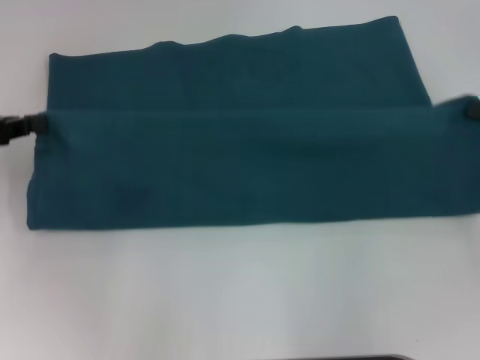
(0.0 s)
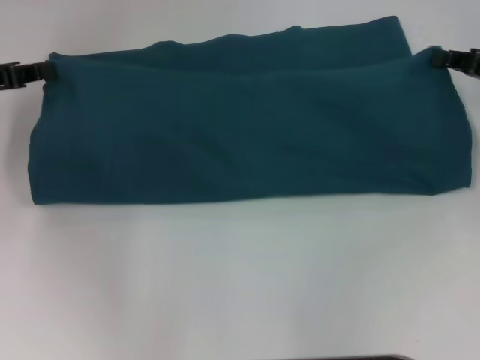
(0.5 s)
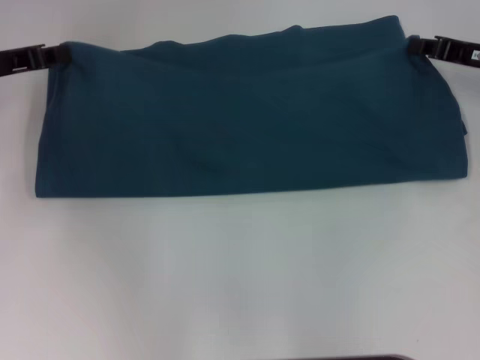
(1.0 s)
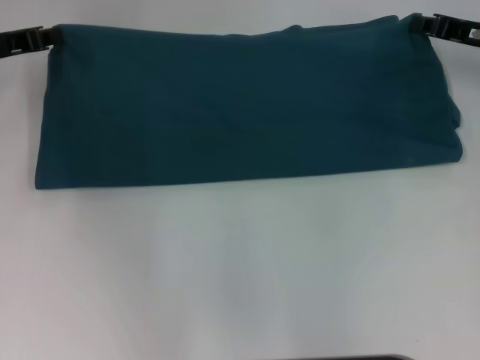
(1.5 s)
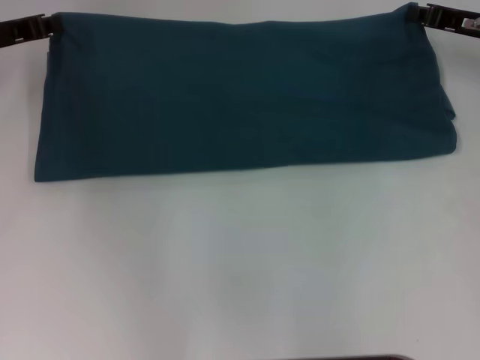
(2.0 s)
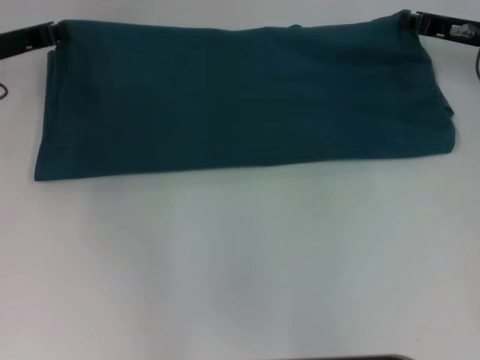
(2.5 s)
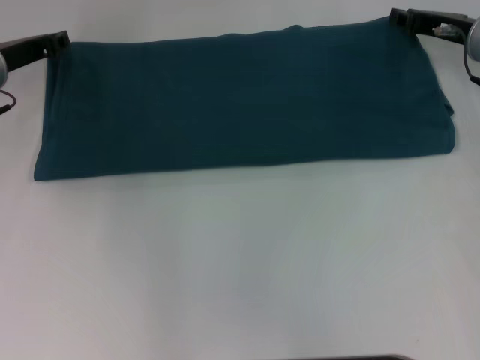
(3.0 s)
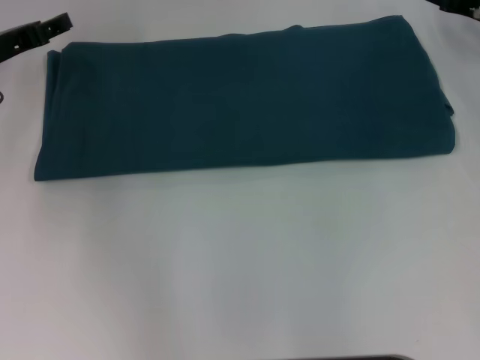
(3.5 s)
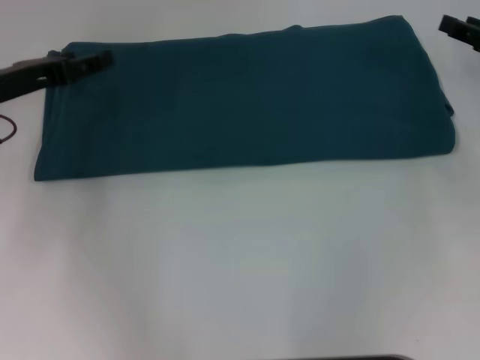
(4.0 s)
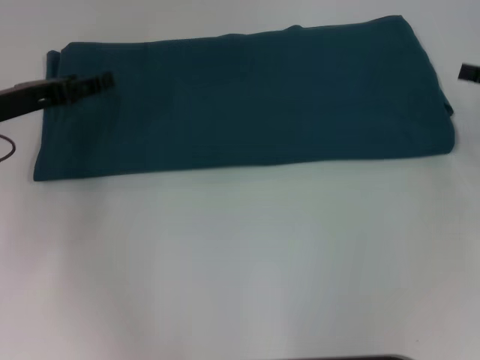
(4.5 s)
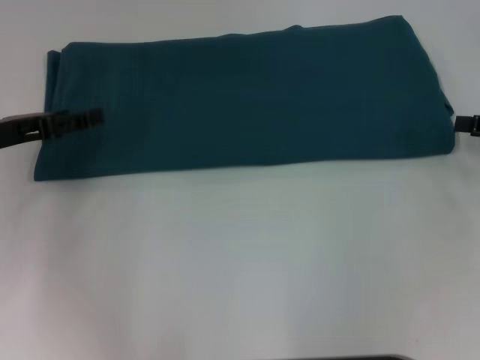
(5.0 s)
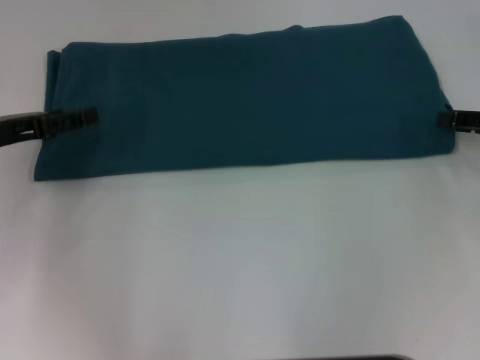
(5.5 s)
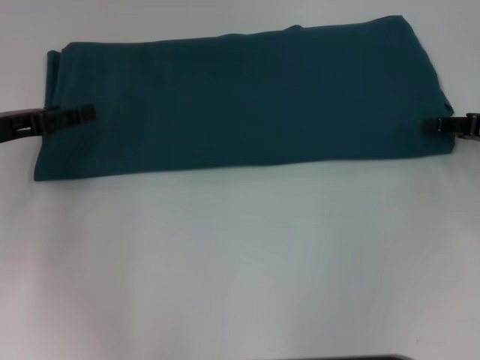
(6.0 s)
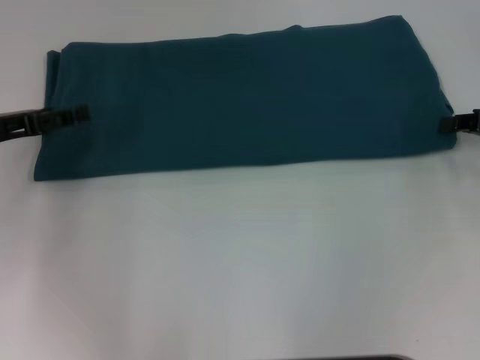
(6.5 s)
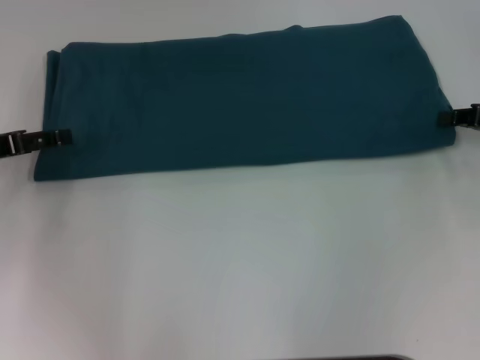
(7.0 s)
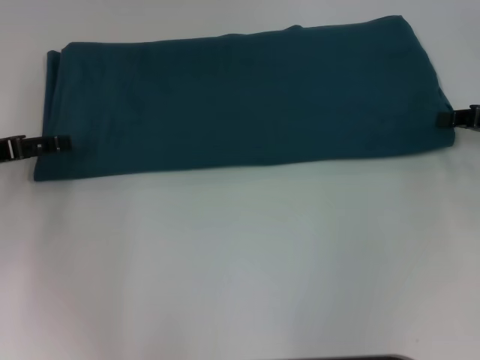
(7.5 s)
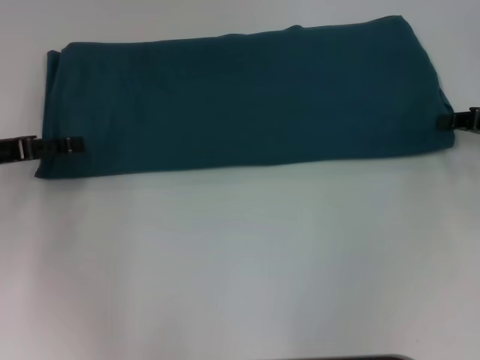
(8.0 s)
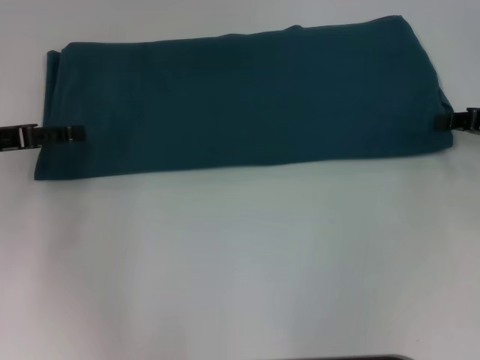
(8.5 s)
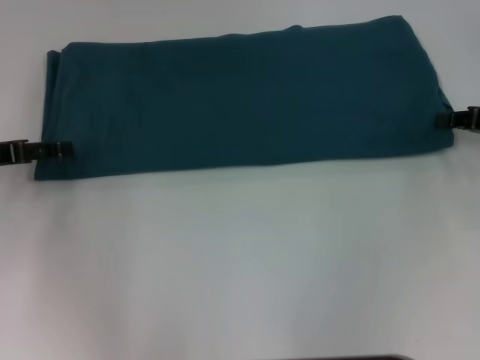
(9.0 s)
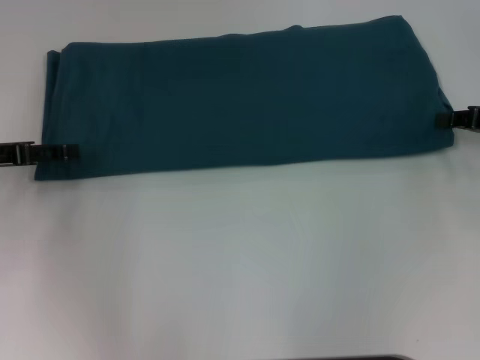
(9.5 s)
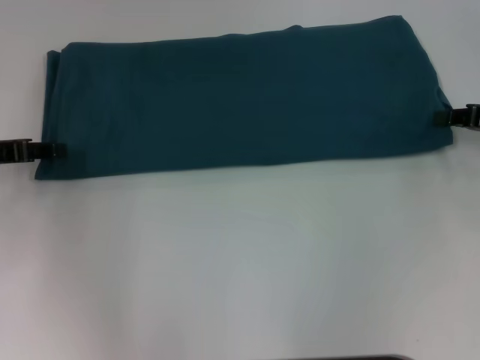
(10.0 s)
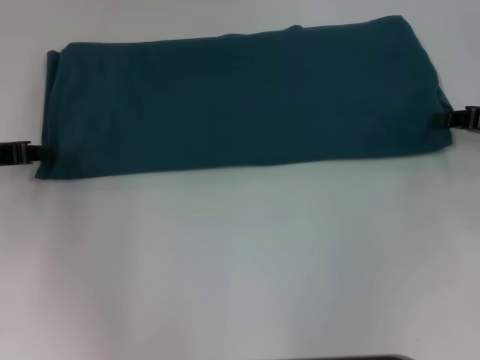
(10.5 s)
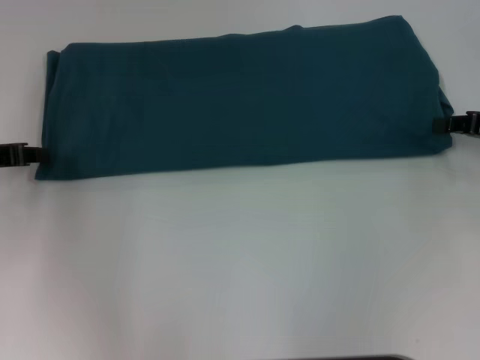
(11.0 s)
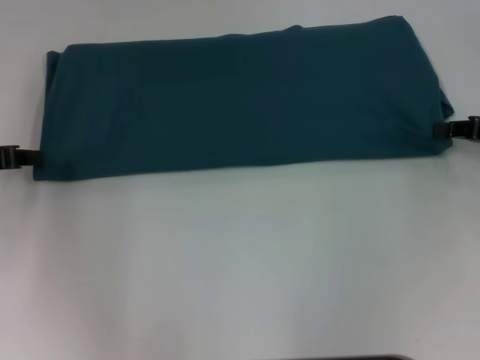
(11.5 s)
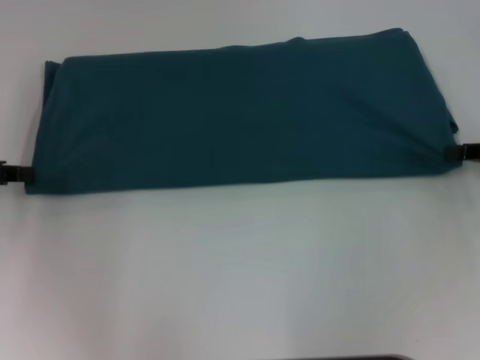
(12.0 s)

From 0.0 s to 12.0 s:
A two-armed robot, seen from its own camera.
Step, from 0.0 s to 3.0 s: Fold the clothes to the left.
Step, from 0.0 s to 3.0 s: Fold the clothes to the right.
From 0.0 s to 2.0 s: The right gripper travels forward and to the left by roughly 15 cm, while the left gripper heads forward and to the right, covering about 10 cm.
From 2.0 s to 4.0 s: The two grippers go approximately 5 cm backward. The right gripper opens up, while the left gripper opens its fingers.
From 10.0 s to 12.0 s: The left gripper closes.

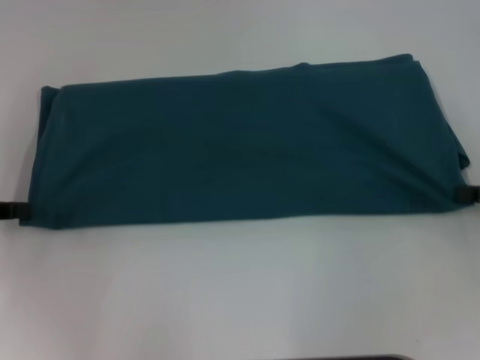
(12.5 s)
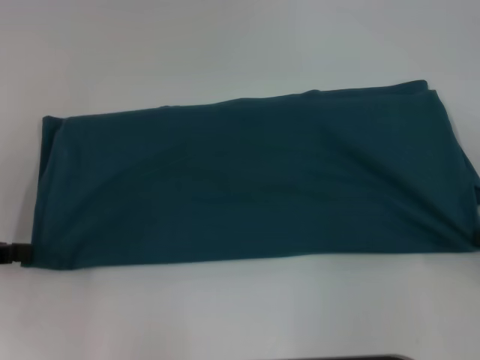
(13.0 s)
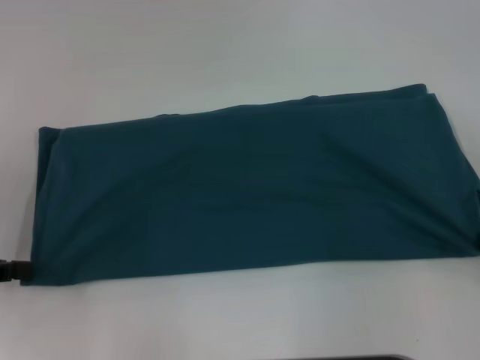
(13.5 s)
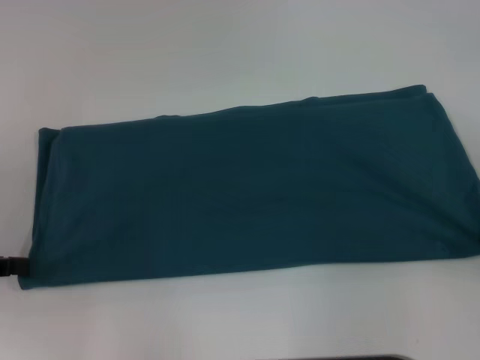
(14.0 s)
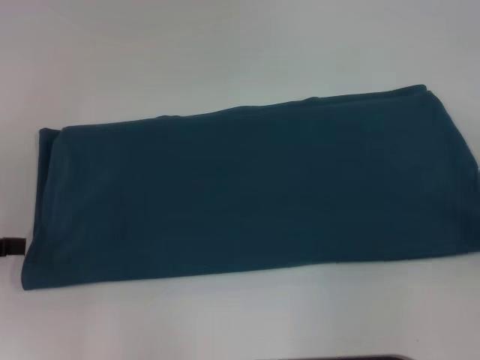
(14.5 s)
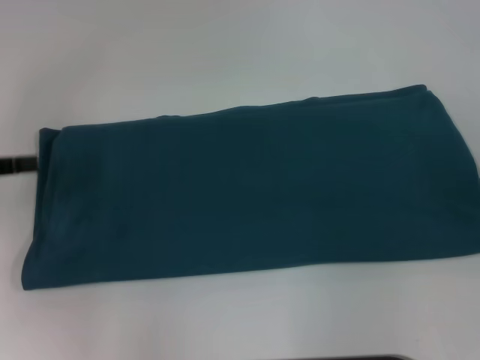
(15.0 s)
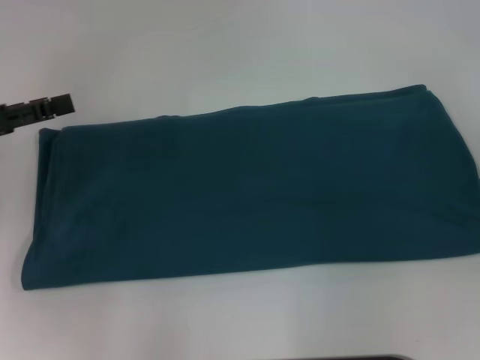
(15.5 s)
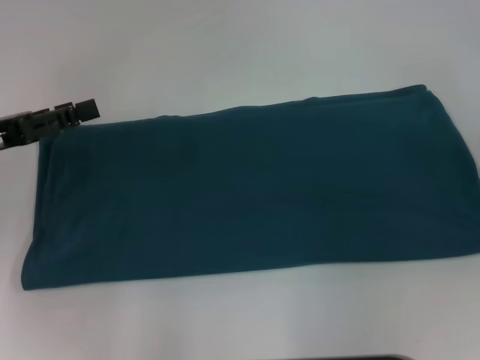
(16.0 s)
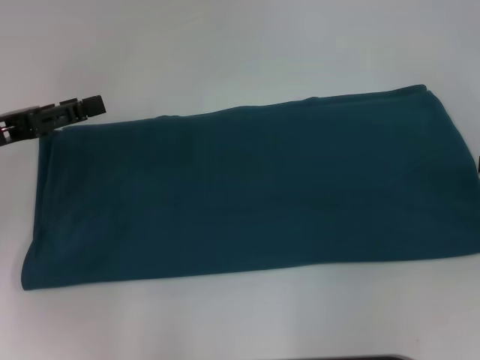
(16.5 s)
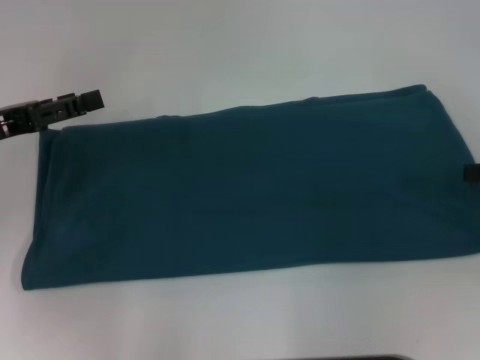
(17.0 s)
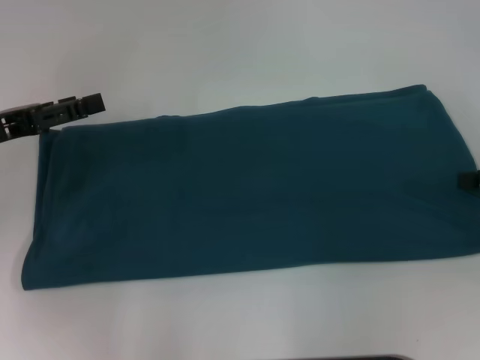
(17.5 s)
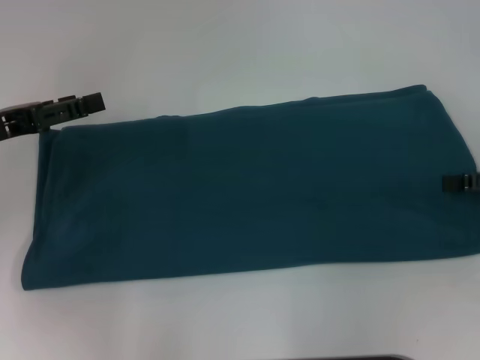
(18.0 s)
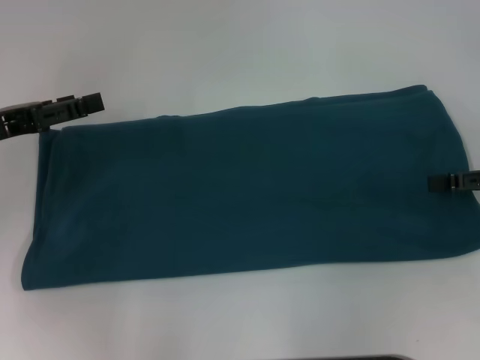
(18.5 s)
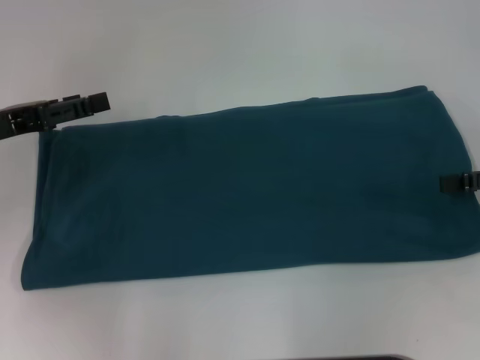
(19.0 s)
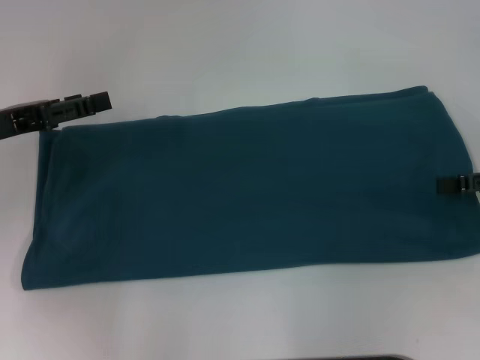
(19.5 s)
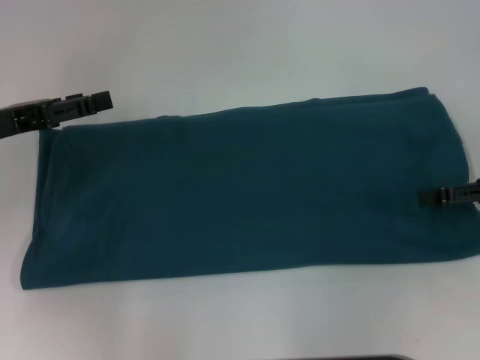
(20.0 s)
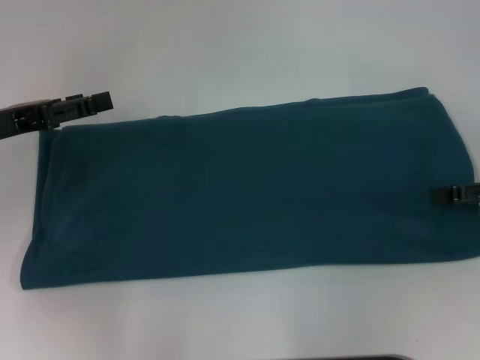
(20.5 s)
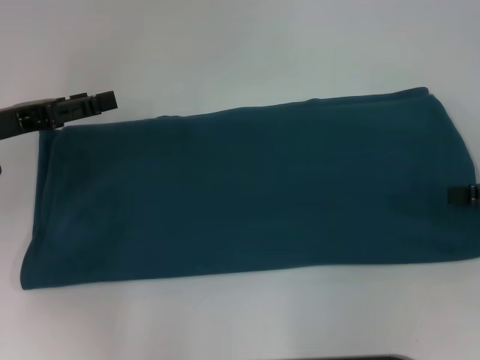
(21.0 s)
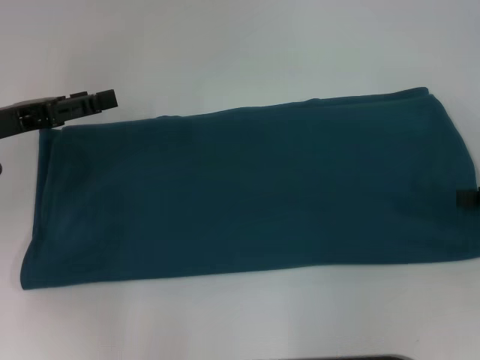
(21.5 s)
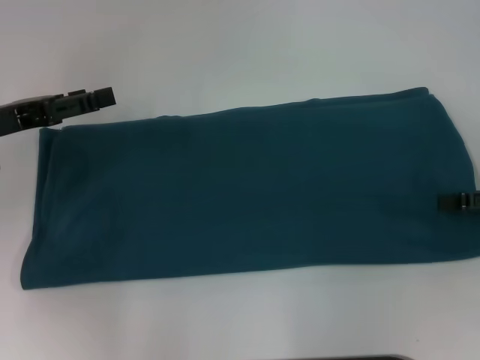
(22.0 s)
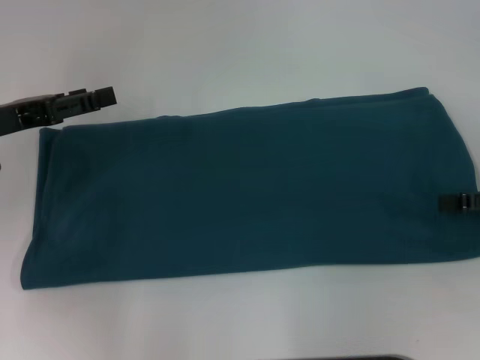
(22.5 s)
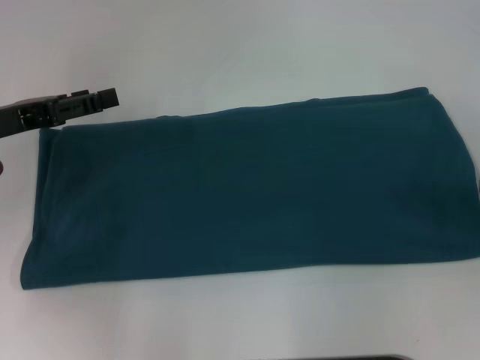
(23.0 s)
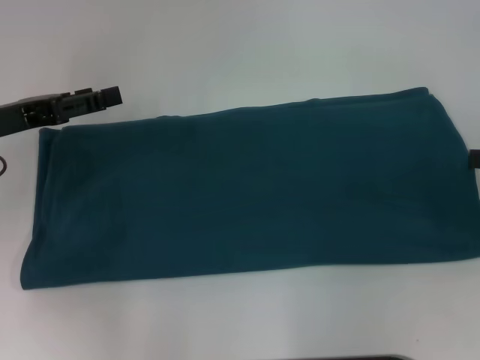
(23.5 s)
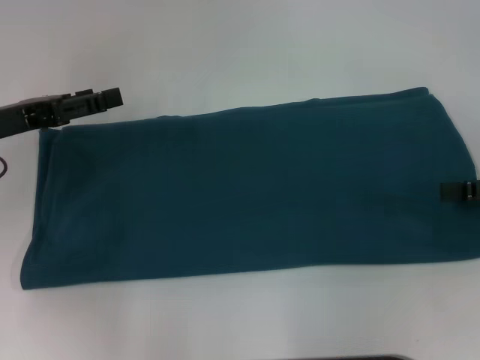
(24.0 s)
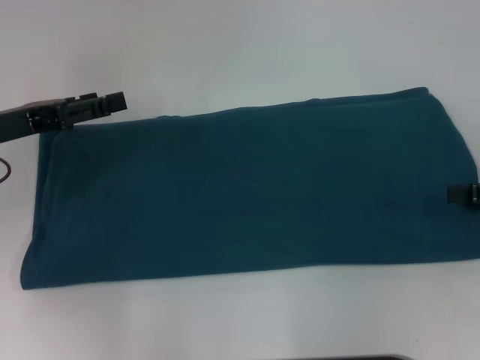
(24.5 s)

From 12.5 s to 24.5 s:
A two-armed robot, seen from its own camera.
Step, from 12.5 s to 14.5 s: Pull the clothes with your left hand.
Step, from 12.5 s to 14.5 s: Pull the clothes with your right hand.
From 14.5 s to 16.5 s: The left gripper shifts some 10 cm to the right and forward, and opens.
From 16.5 s to 24.5 s: There are only small adjustments of the grippers.

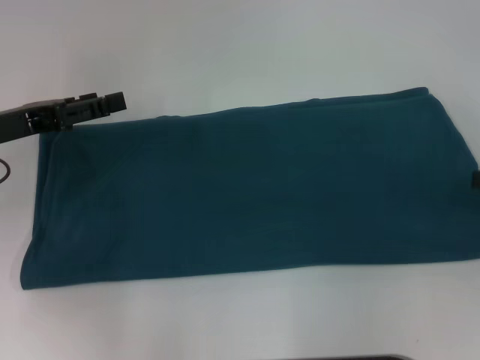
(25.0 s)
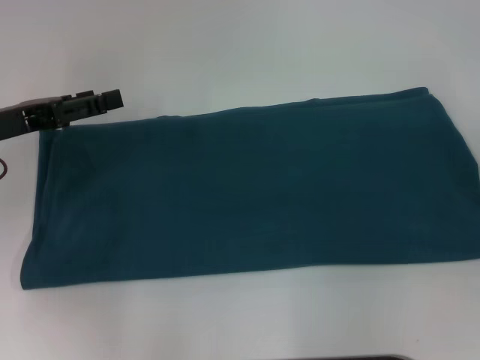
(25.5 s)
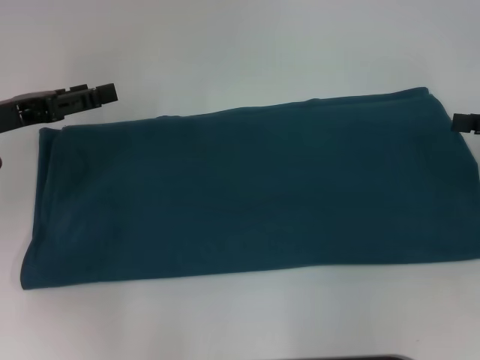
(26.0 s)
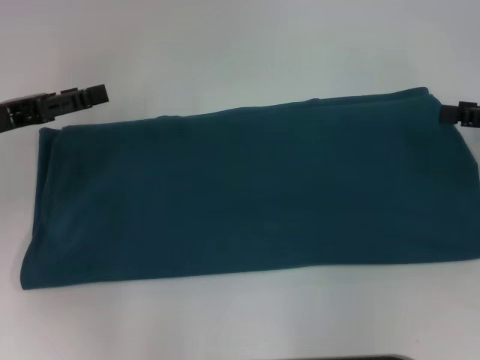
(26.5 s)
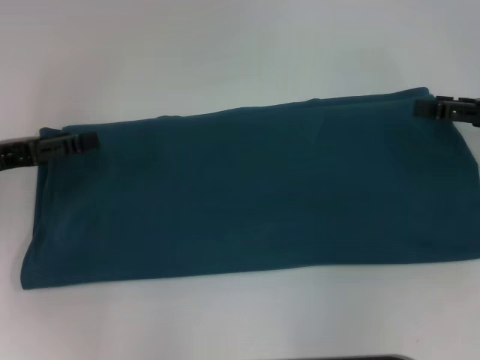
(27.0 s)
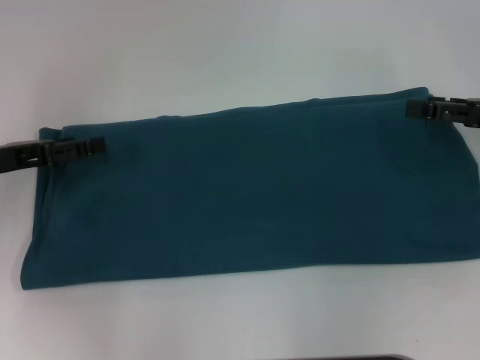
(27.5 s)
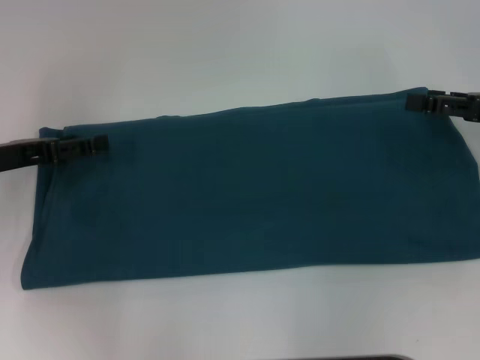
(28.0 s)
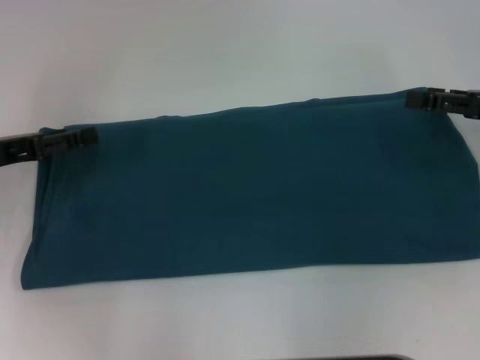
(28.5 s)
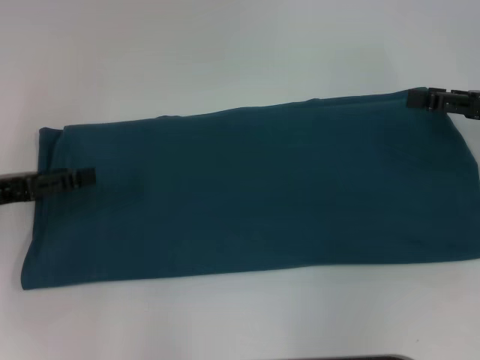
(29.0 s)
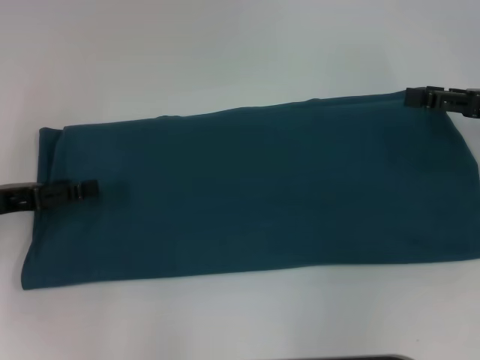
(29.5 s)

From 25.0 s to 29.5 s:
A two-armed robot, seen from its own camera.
From 25.0 s to 27.0 s: The right gripper is displaced forward by approximately 5 cm.
From 27.0 s to 29.5 s: The grippers make only small movements.
